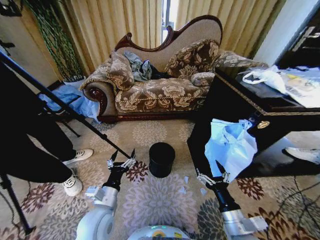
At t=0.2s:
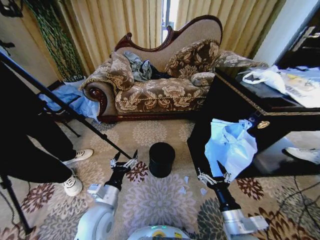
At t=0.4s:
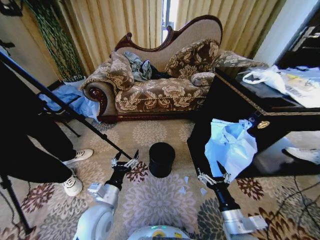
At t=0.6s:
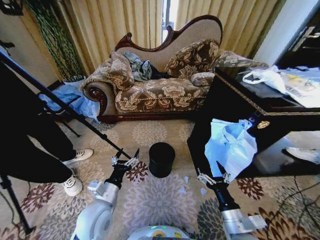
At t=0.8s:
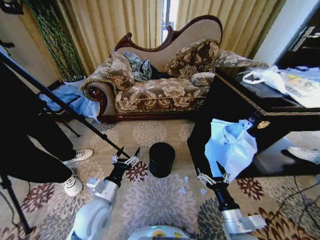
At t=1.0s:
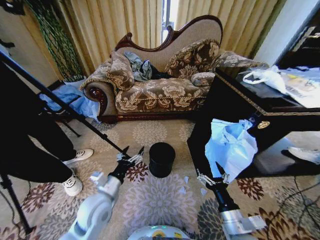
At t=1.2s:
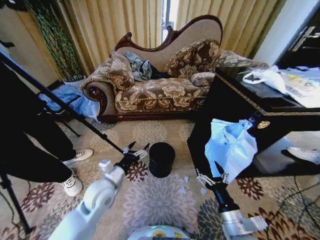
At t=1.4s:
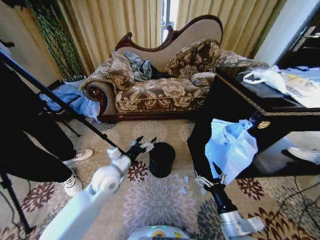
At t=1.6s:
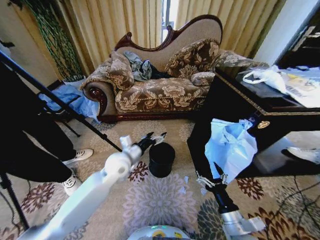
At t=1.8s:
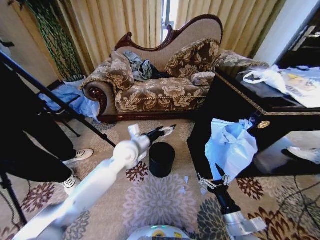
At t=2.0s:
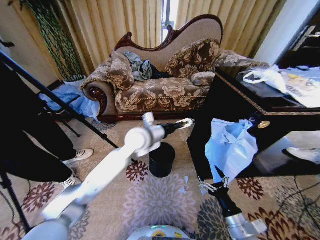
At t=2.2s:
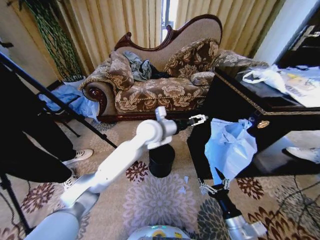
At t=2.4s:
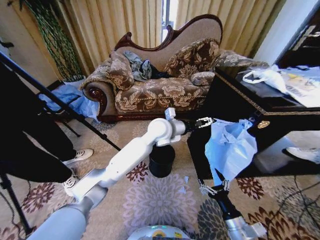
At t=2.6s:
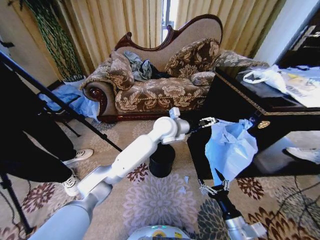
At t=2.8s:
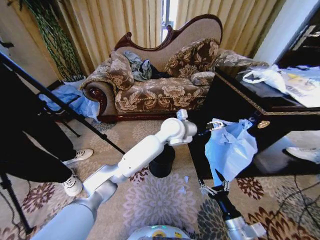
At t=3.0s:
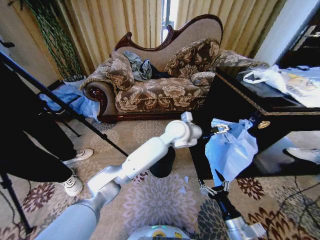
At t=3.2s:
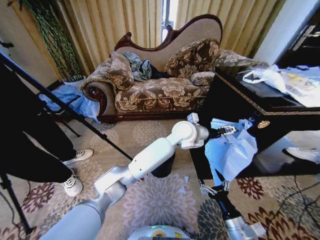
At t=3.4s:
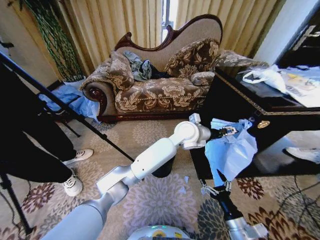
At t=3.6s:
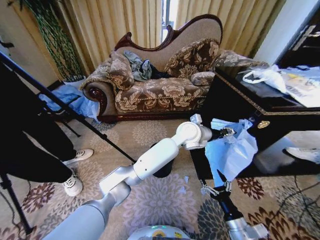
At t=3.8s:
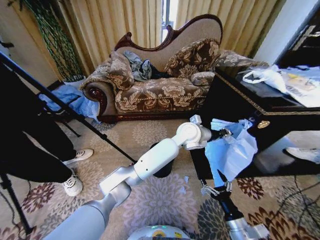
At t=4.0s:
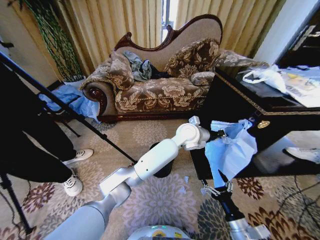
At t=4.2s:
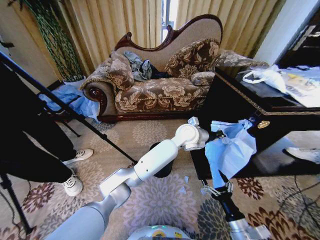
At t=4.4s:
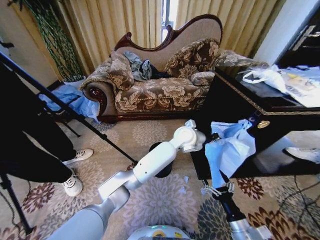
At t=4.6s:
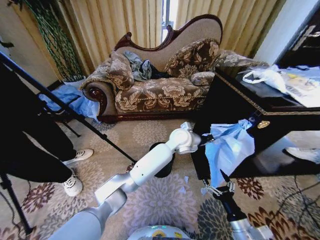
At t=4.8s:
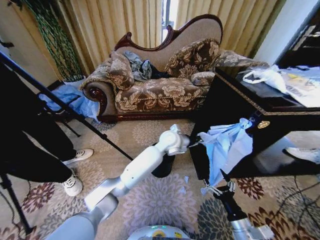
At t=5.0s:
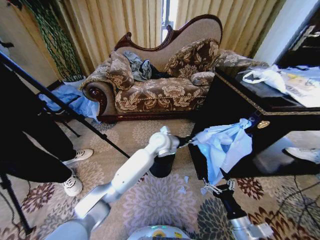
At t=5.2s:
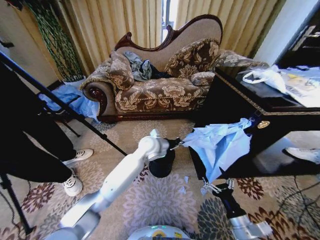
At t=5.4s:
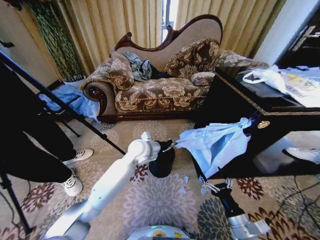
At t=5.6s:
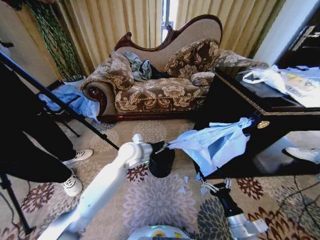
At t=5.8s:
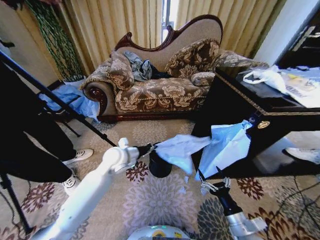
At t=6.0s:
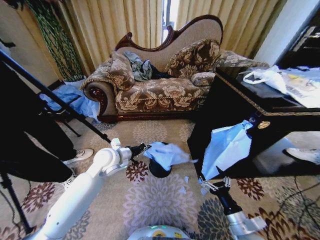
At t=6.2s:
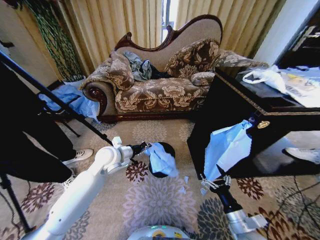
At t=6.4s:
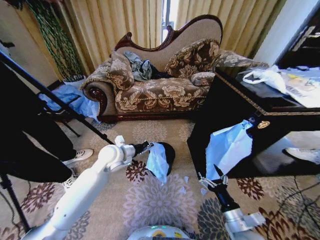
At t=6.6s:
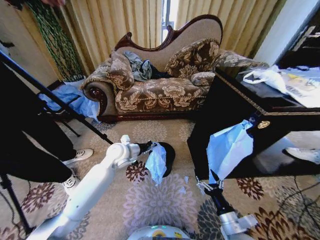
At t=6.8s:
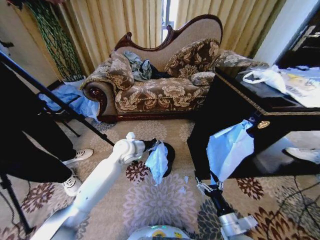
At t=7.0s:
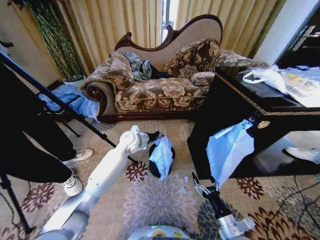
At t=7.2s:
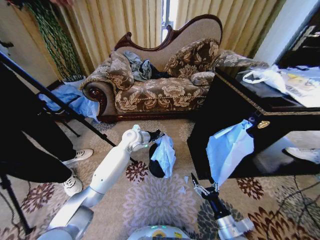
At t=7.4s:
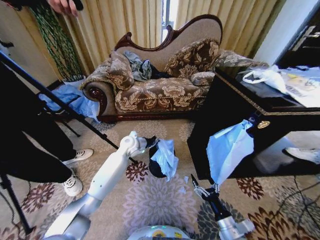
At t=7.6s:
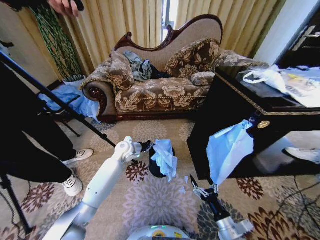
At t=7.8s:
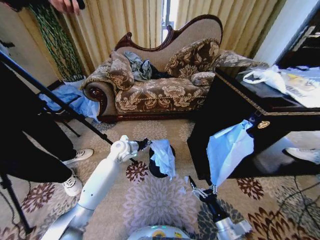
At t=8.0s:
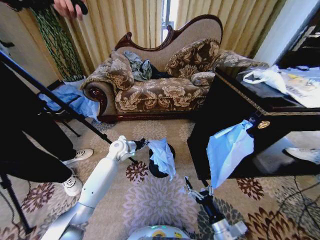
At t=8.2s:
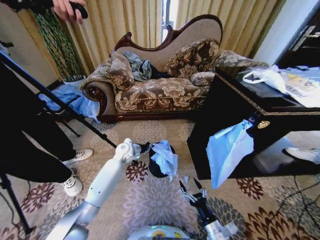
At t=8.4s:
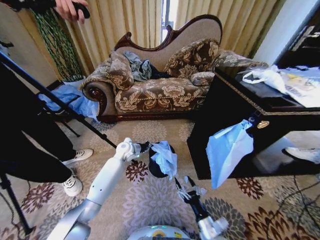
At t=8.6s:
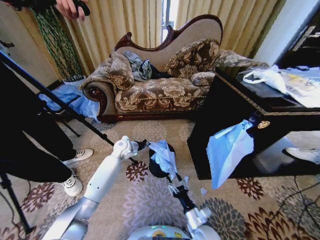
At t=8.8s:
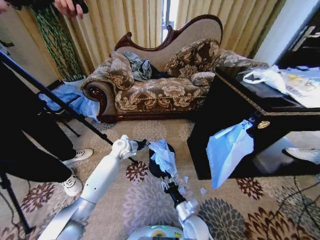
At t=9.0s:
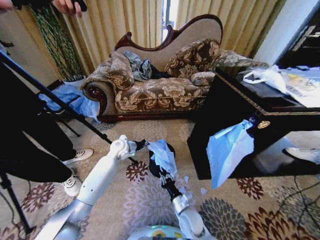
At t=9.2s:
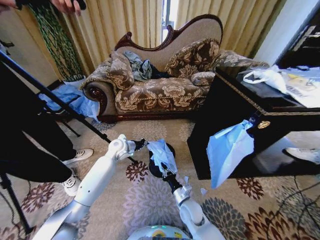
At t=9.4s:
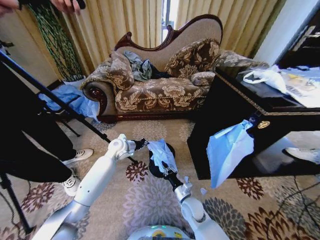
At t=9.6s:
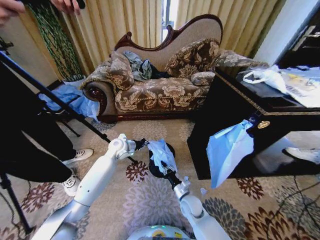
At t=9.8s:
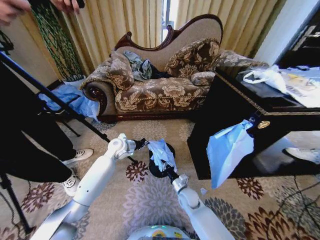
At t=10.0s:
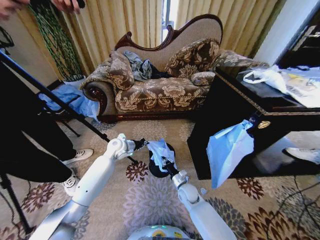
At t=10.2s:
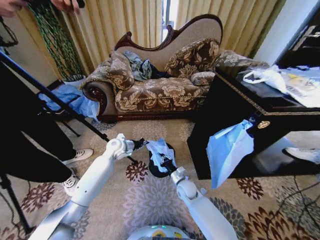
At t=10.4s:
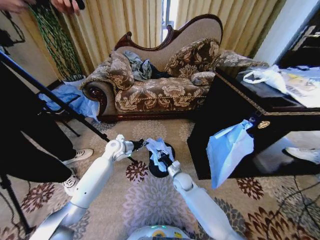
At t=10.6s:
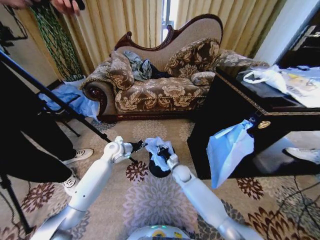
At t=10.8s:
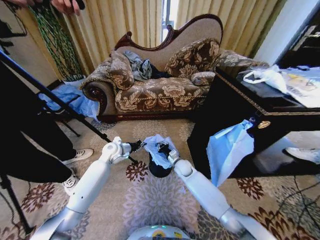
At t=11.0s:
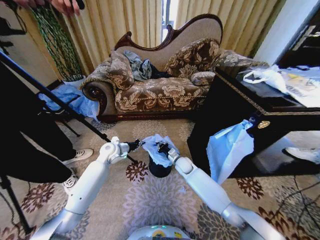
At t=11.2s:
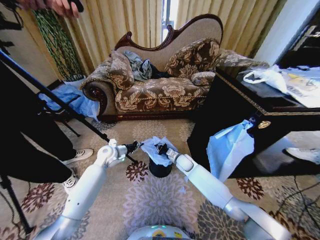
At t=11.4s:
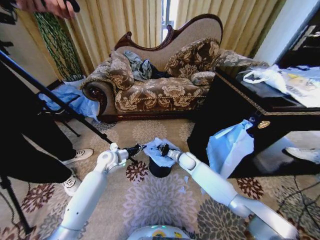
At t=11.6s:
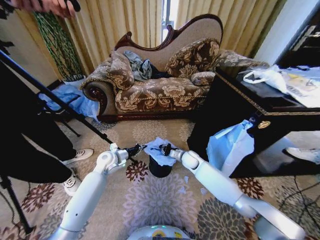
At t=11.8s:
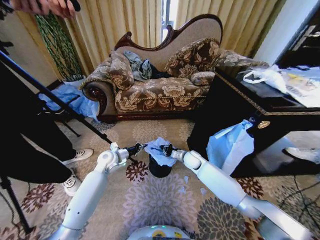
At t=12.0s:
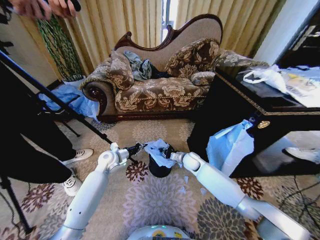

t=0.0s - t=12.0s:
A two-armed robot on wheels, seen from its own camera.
Task of the whole recording: Place a garbage bag over the trash bin.
t=1.6s - t=3.0s: The left gripper travels to the right and upward by some 25 cm. The right gripper shifts by approximately 5 cm.
t=3.0s - t=4.4s: The left gripper moves about 5 cm, and closes up.
t=4.4s - t=6.0s: The left gripper shifts some 30 cm to the left.
t=6.0s - t=7.6s: The left gripper goes about 15 cm forward and downward.
t=7.6s - t=9.0s: The right gripper travels to the left and forward by roughly 20 cm, and closes up.
t=9.0s - t=10.4s: The right gripper heads forward, covering roughly 15 cm.
t=10.4s - t=12.0s: The right gripper moves forward, upward and to the right, some 15 cm, while the left gripper shifts by about 5 cm.

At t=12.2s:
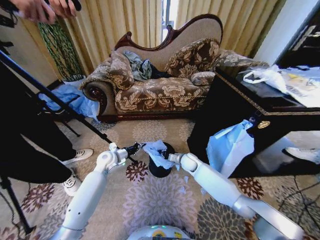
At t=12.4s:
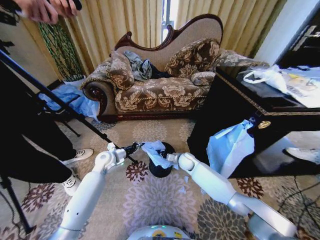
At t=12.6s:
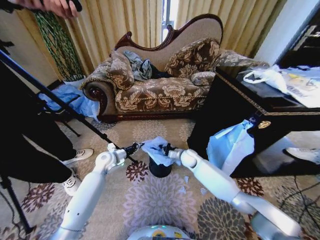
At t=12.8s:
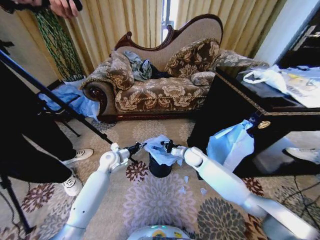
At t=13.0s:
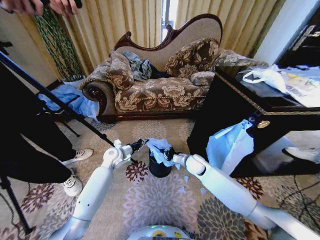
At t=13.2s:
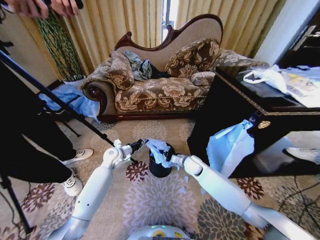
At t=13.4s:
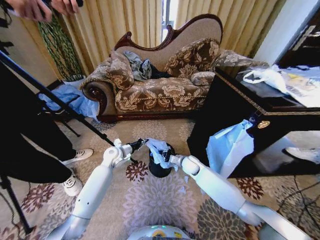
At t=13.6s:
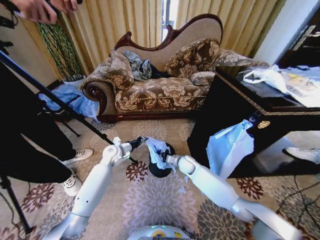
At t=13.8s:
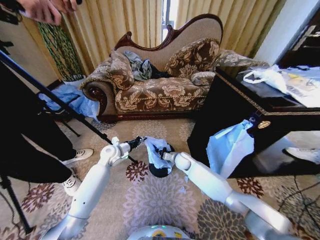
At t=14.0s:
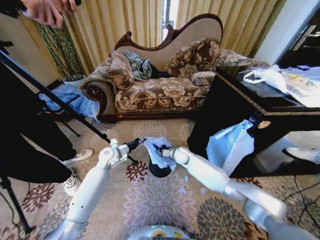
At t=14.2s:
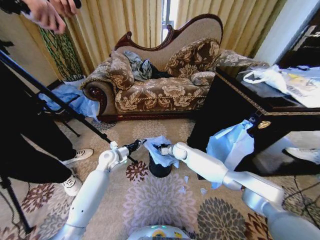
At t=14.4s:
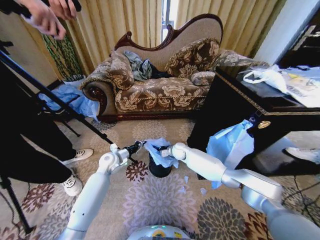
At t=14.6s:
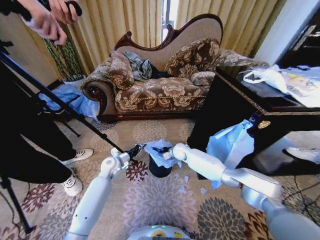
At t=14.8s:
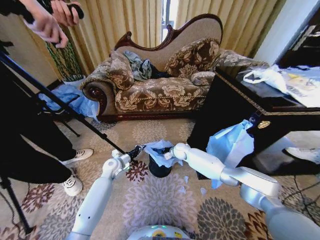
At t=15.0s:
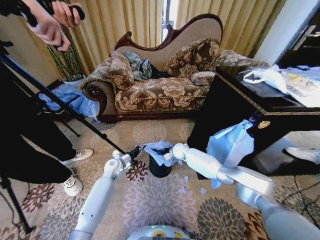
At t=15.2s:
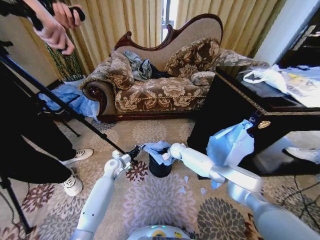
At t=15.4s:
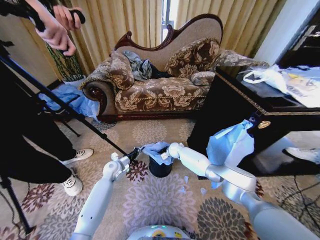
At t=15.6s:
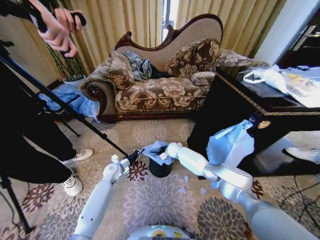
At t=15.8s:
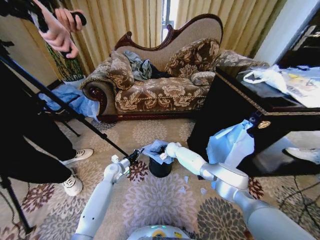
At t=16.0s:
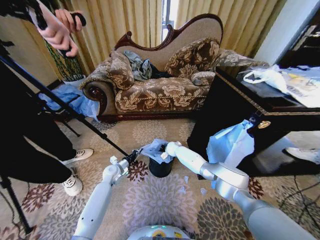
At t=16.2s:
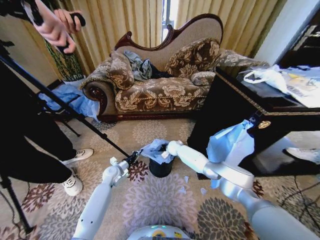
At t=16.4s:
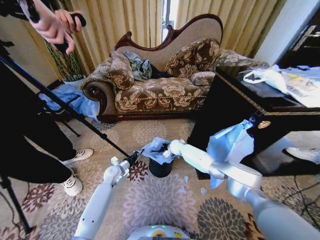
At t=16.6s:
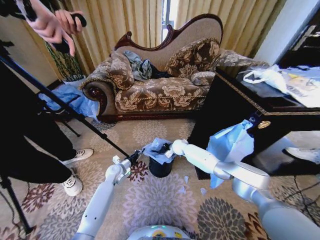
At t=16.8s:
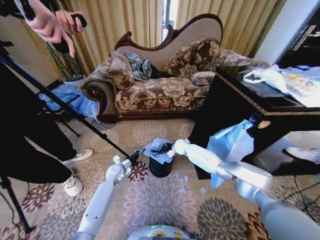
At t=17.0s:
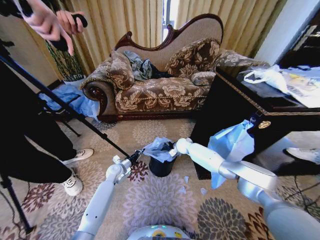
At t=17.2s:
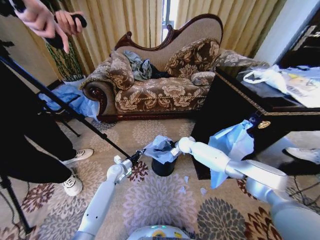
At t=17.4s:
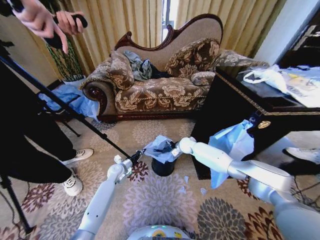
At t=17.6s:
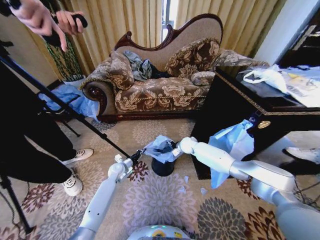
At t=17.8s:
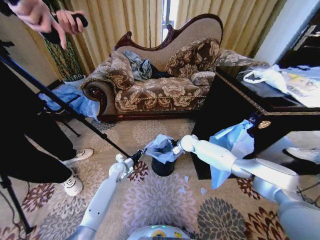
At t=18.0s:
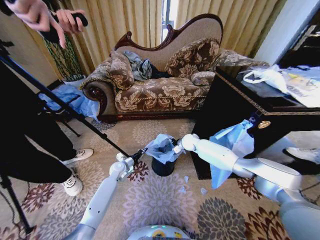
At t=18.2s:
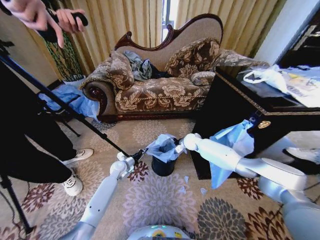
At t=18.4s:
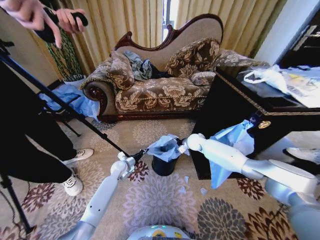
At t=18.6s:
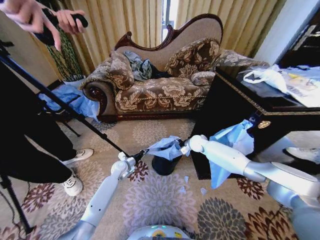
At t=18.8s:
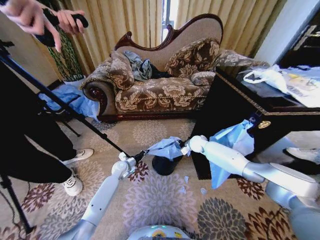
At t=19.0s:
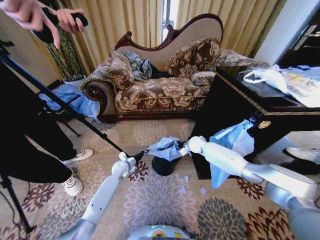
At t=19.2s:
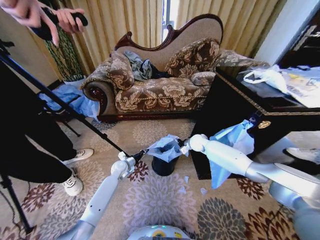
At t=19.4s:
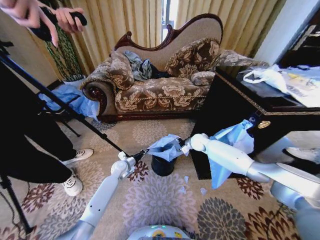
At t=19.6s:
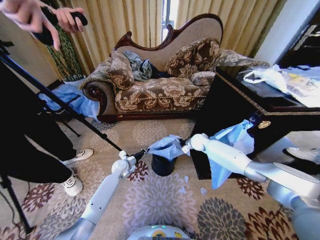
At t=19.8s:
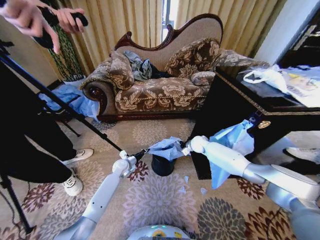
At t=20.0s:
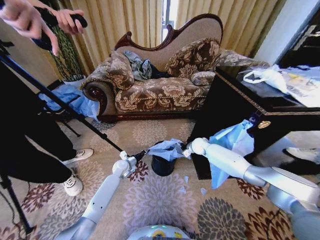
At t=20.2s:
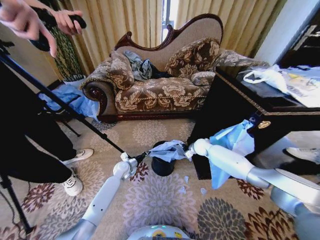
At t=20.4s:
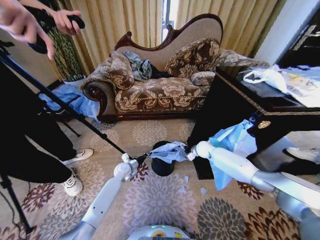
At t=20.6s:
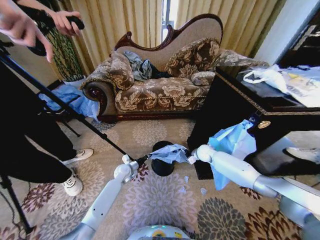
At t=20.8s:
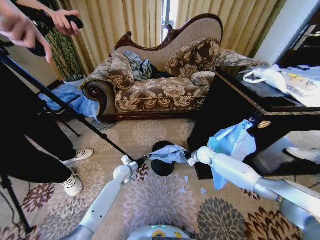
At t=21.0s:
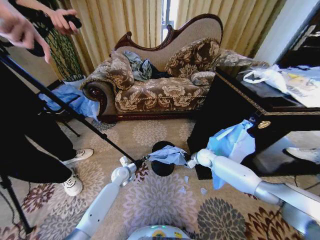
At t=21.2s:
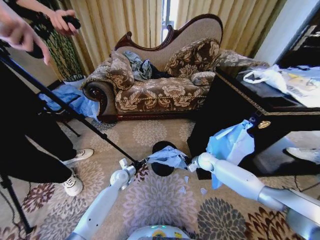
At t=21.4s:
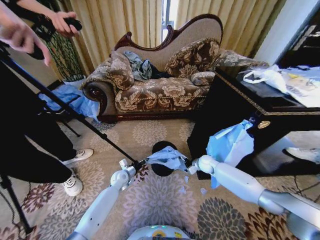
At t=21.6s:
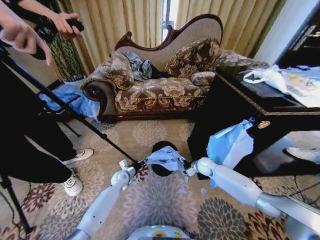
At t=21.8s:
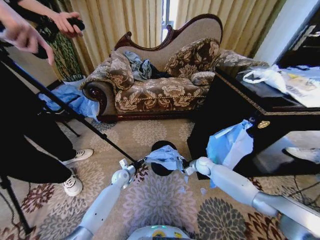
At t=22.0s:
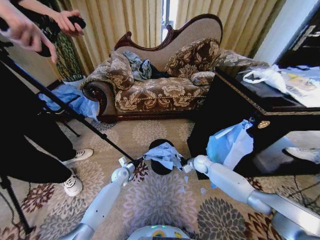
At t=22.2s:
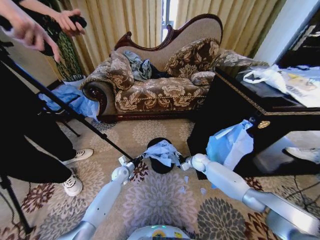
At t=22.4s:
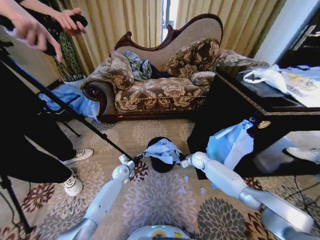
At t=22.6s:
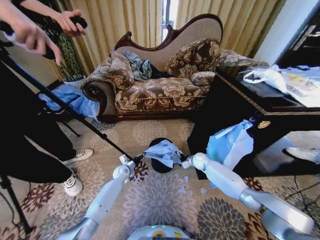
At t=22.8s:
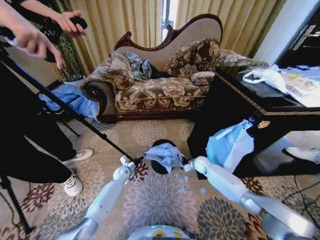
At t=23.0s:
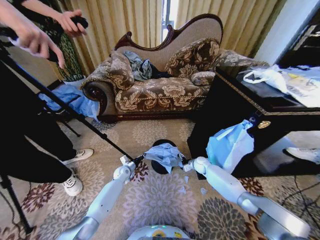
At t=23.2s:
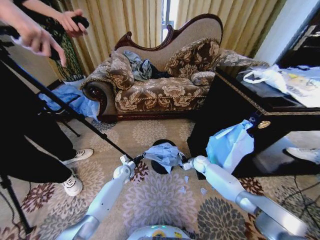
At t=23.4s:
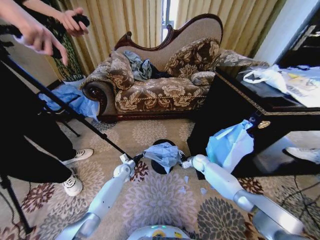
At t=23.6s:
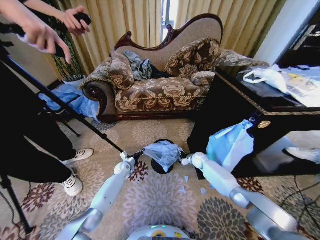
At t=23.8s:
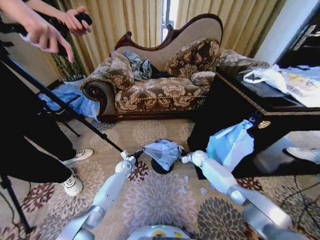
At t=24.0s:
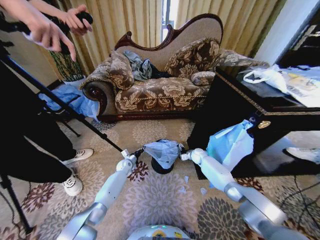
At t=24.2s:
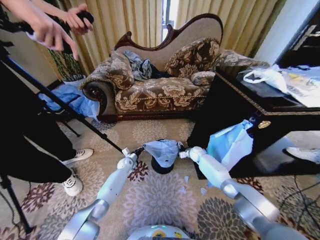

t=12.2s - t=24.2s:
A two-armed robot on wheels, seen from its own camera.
Task of the whole recording: Place a garbage bag over the trash bin.
t=13.8s - t=15.2s: The right gripper goes approximately 10 cm forward, while the left gripper is displaced downward by approximately 10 cm.
t=15.2s - t=16.6s: The grippers make only small movements.
t=16.6s - t=18.2s: The right gripper shifts approximately 10 cm to the right and upward, and opens up.
t=18.2s - t=19.8s: The grippers move only a little.
t=19.8s - t=21.2s: The right gripper goes roughly 10 cm backward and downward. The left gripper is displaced backward by roughly 5 cm.
t=21.2s - t=22.6s: The left gripper changes place by approximately 5 cm.
t=22.6s - t=24.2s: The grippers both shift forward by some 5 cm.
